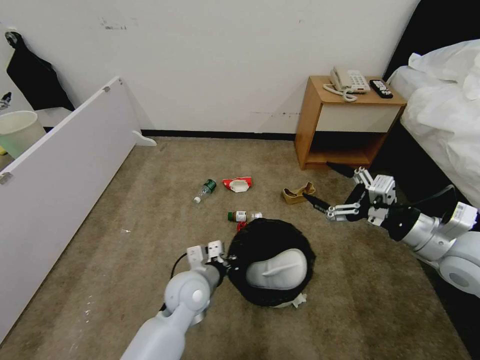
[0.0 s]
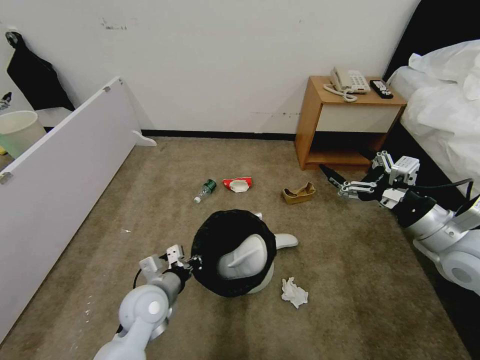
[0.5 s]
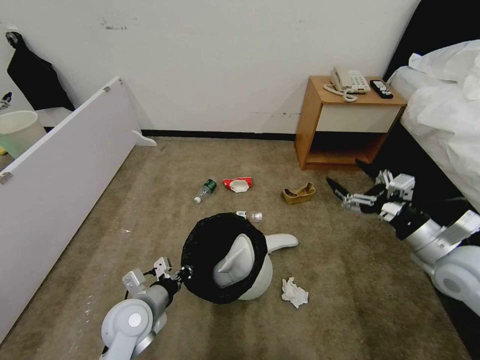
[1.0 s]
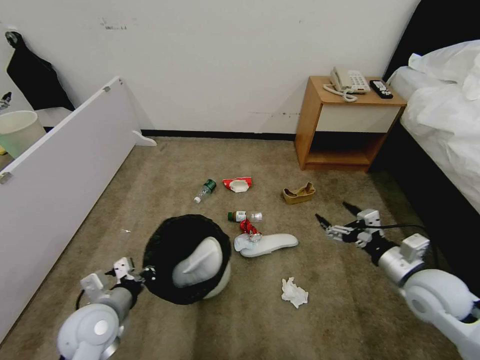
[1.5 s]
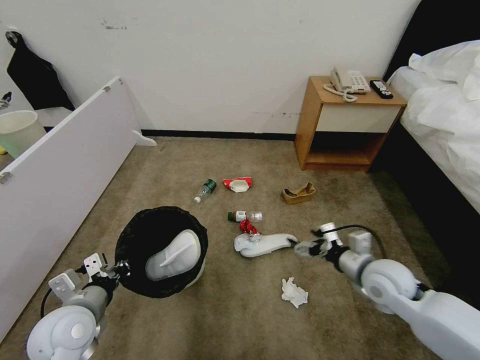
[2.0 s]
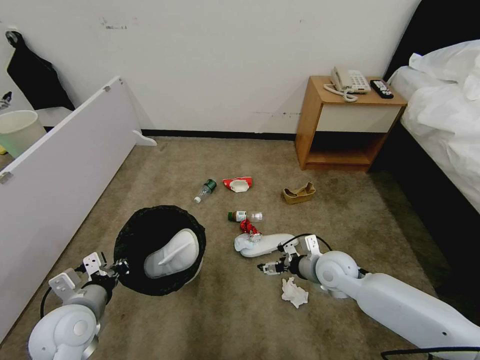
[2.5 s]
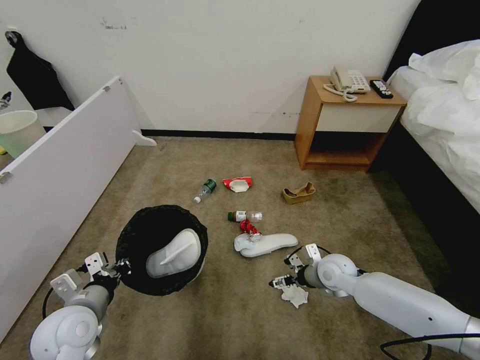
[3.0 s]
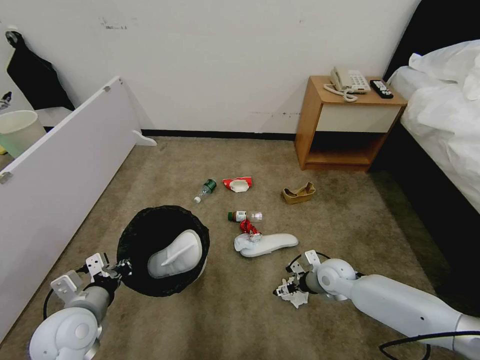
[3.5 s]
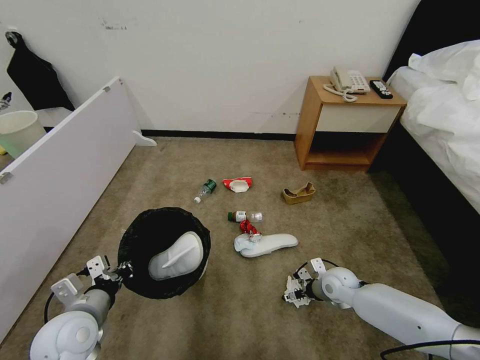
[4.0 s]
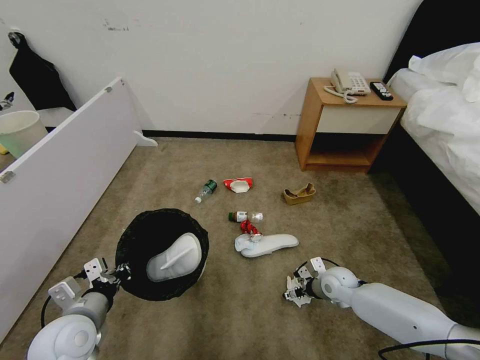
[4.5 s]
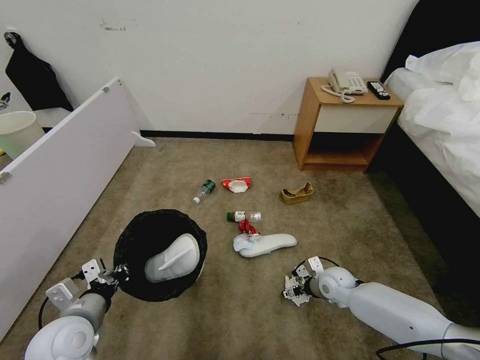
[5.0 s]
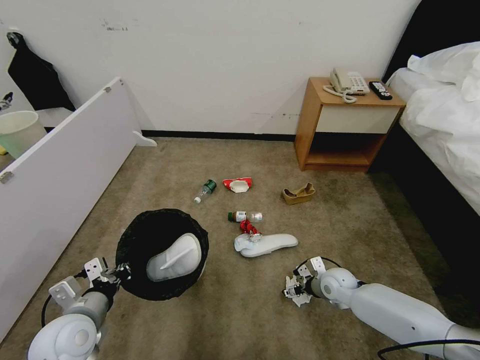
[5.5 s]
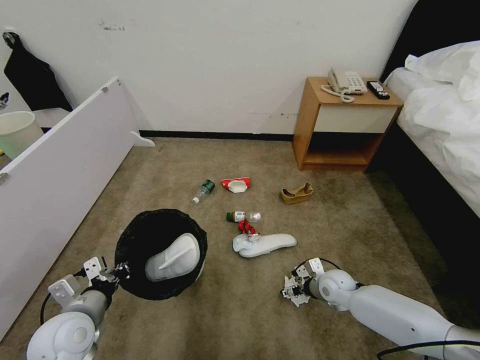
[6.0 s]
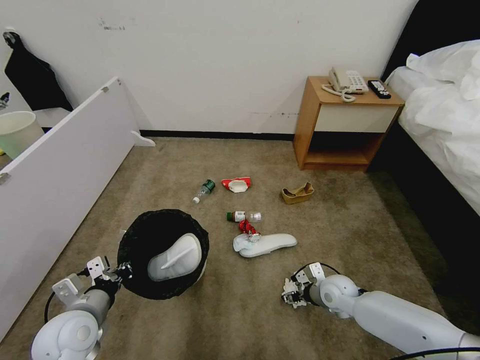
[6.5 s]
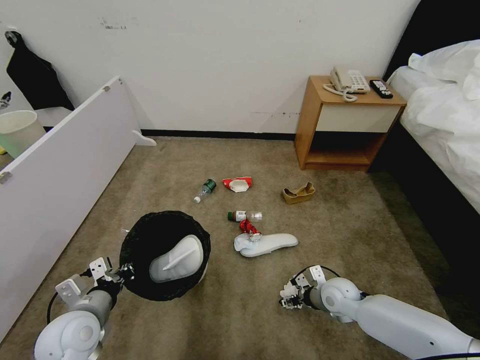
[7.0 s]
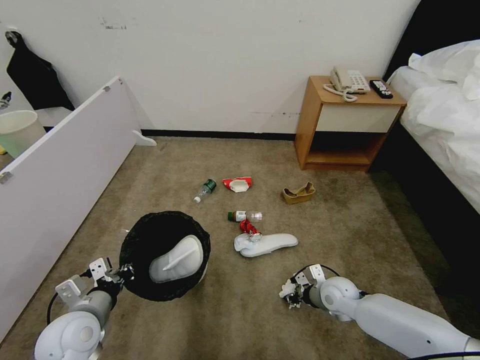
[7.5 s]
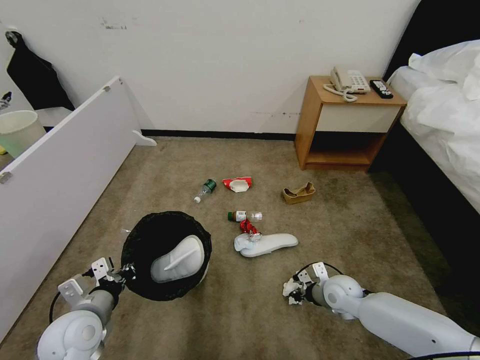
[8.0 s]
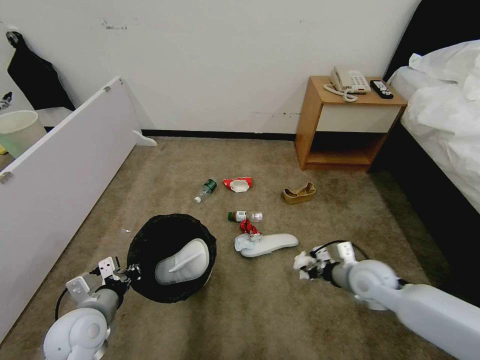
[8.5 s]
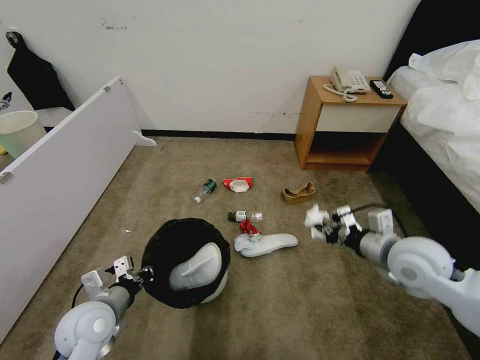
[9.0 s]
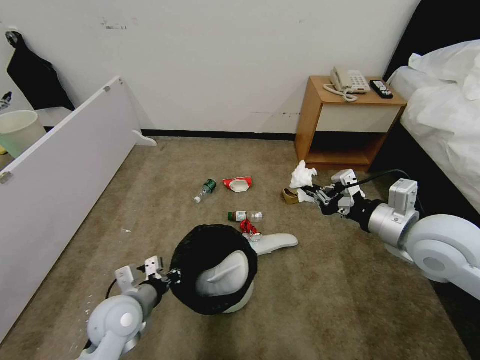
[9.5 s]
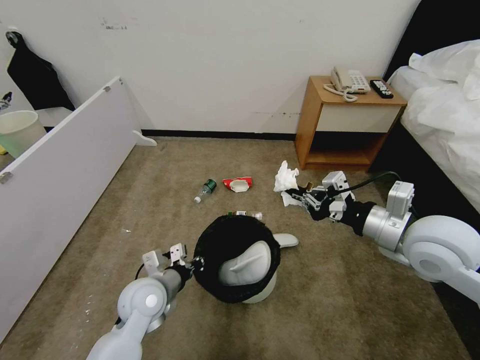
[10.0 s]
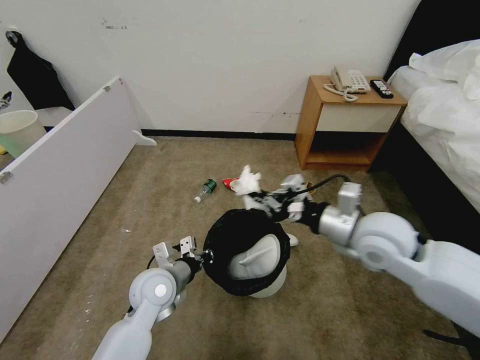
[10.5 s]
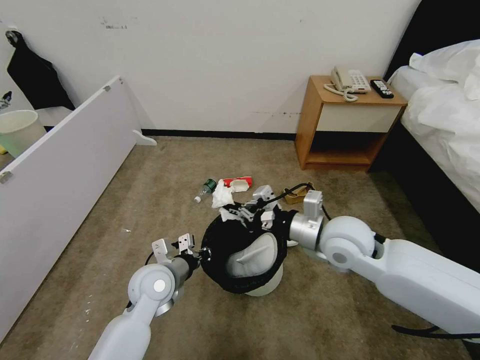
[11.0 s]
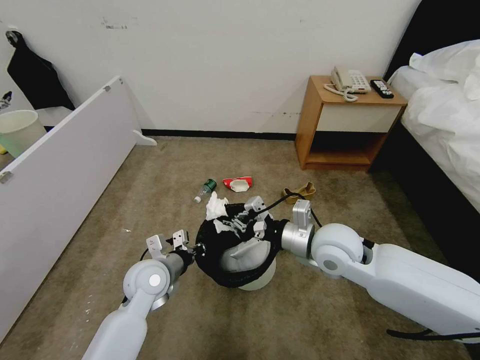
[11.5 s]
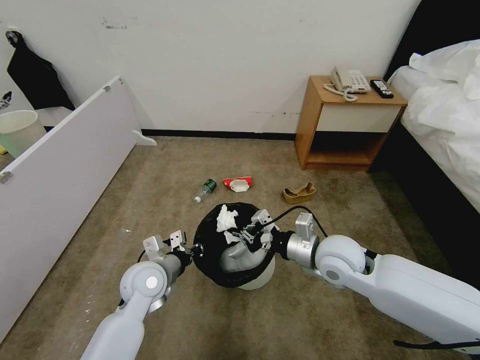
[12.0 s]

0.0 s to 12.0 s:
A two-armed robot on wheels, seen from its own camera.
Task of the whole recording: Pick up the trash bin and place the garbage on the floor into it.
0.0 to 2.0 s: The left gripper shifts about 20 cm to the left and backward. Meanwhile the right gripper heads downward and to the left, covering roughly 15 cm.
2.0 to 4.0 s: The right gripper travels downward by approximately 15 cm.
4.0 to 6.0 s: Both grippers stay about where they are.
6.0 to 8.0 s: The right gripper closes.
8.0 to 10.0 s: The right gripper moves upward, roughly 30 cm, while the left gripper is displaced to the right and forward by some 15 cm.
10.0 to 12.0 s: The right gripper moves downward and to the left, about 15 cm.

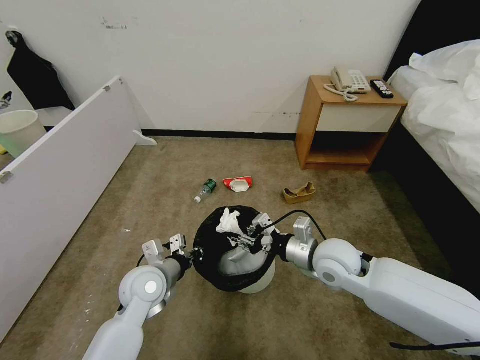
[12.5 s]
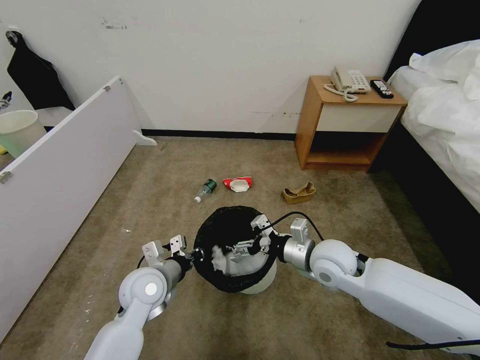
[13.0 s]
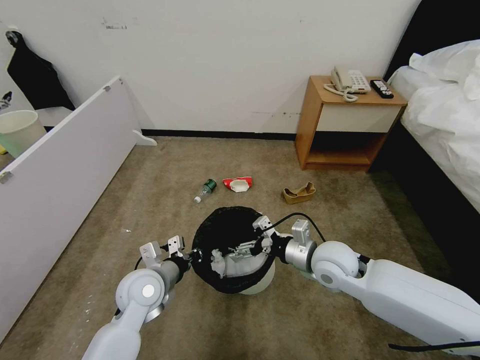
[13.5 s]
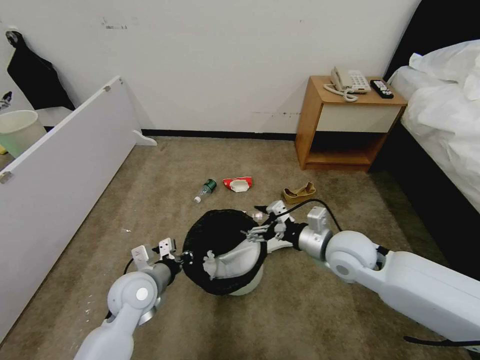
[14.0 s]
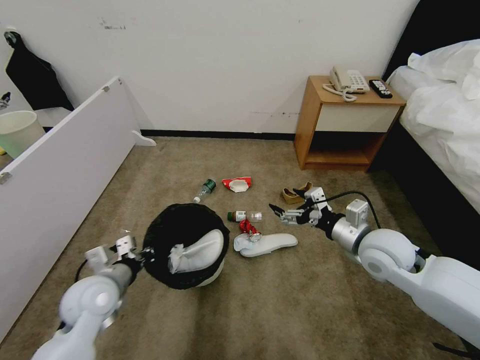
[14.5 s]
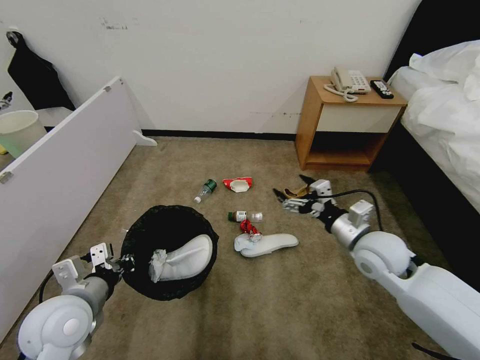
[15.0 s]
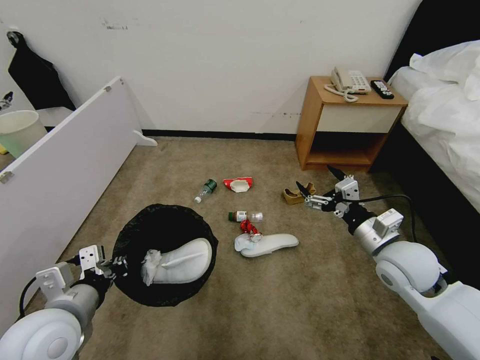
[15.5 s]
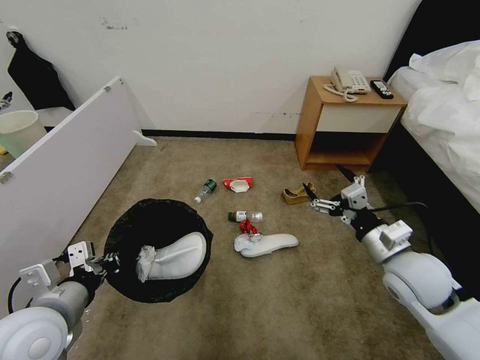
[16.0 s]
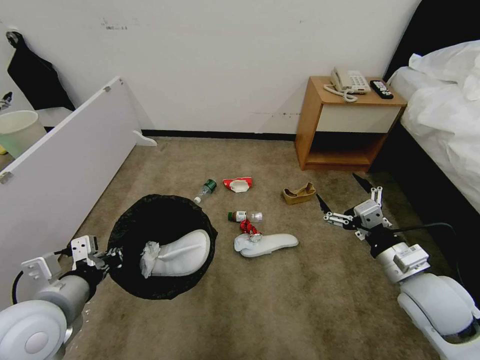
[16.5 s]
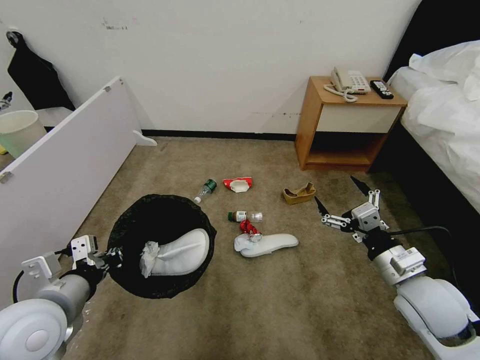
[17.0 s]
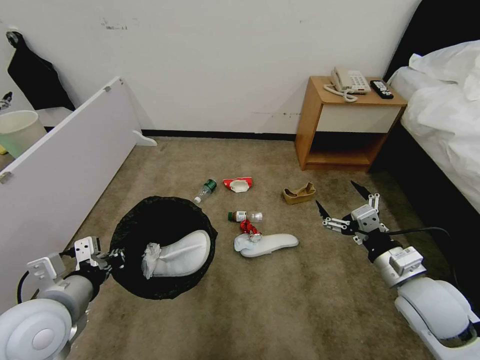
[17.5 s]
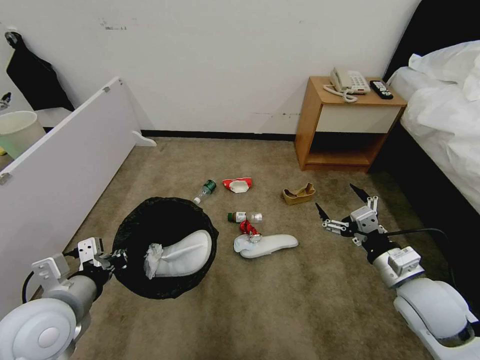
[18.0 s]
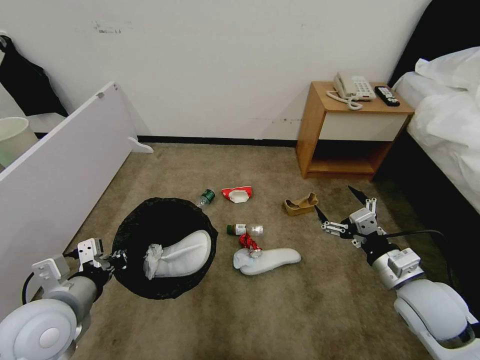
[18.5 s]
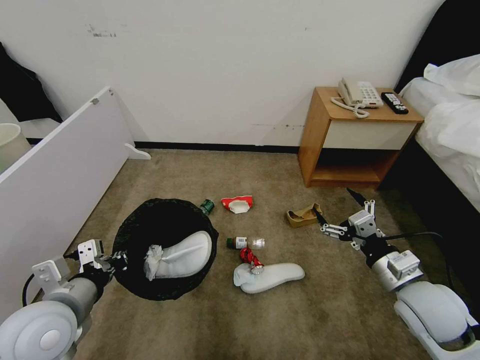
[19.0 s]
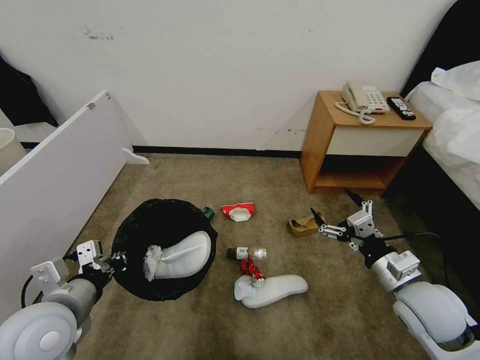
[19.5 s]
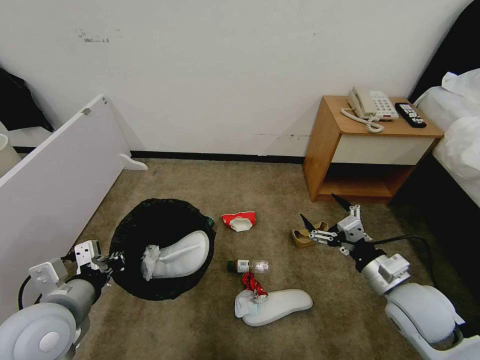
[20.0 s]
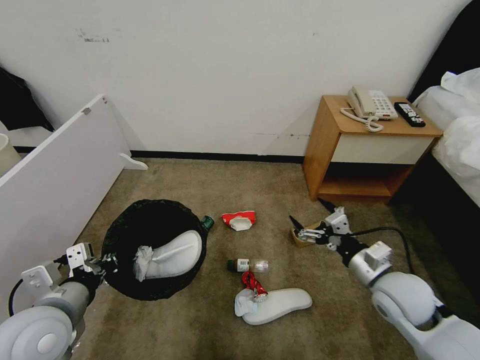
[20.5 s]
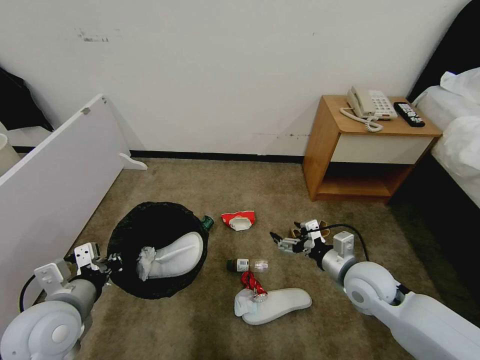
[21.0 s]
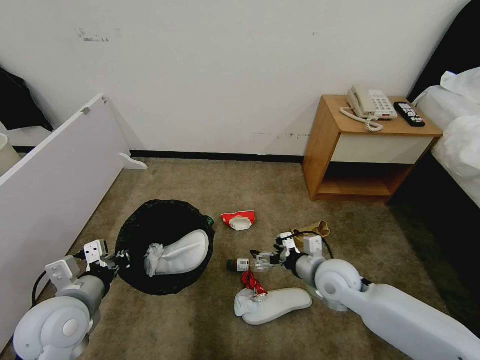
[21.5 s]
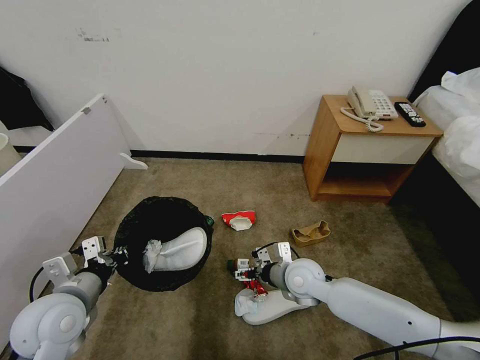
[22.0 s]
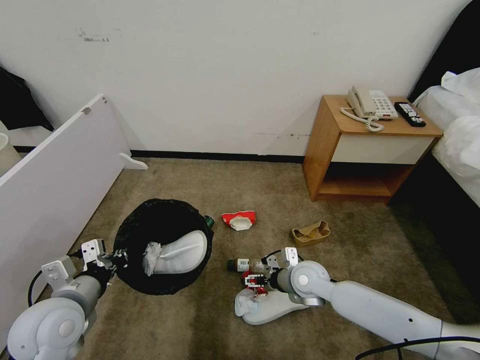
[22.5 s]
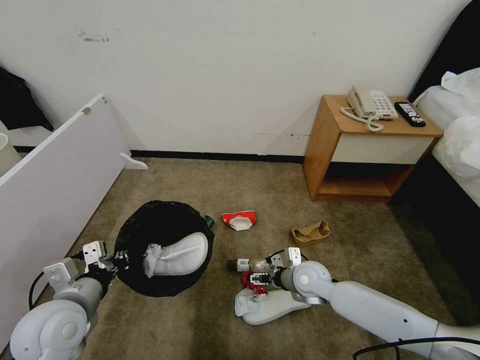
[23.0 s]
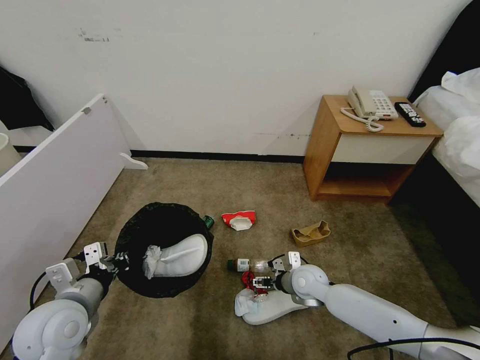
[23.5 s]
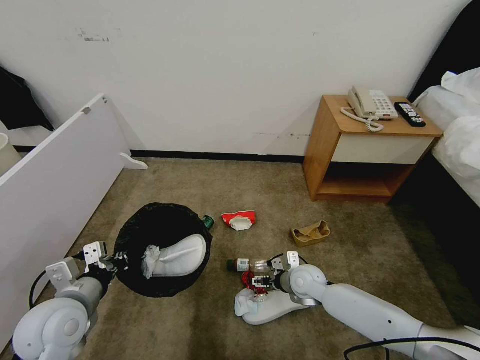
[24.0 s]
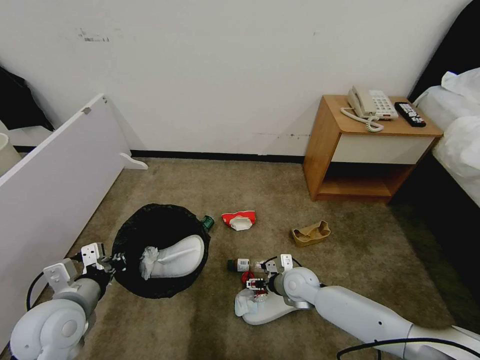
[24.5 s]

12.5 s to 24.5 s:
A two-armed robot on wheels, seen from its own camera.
Task of the whole recording: Pick up the trash bin and place the garbage on the floor into it.
12.5 to 14.5 s: The right gripper is displaced to the right by about 10 cm, and opens its fingers. Meanwhile the left gripper goes roughly 10 cm to the left.
14.5 to 16.5 s: The left gripper shifts some 15 cm upward and backward, while the right gripper is displaced backward by some 10 cm.
16.5 to 18.5 s: The grippers make only small movements.
20.5 to 22.5 s: The right gripper is displaced to the left, downward and forward by approximately 20 cm.
22.5 to 24.5 s: The right gripper is displaced downward by roughly 5 cm.

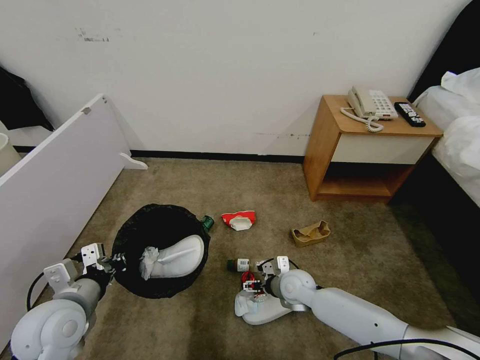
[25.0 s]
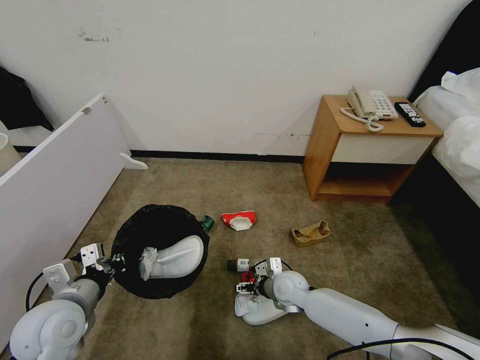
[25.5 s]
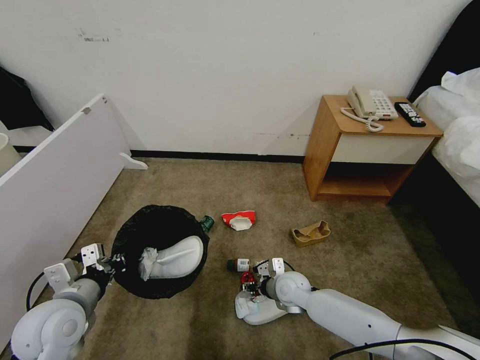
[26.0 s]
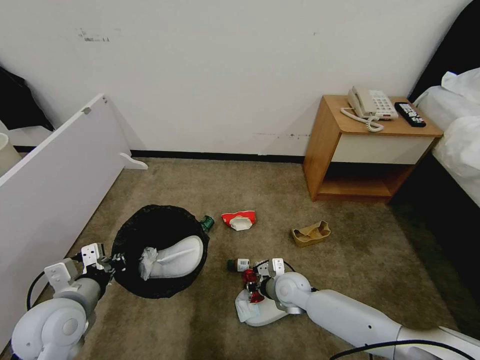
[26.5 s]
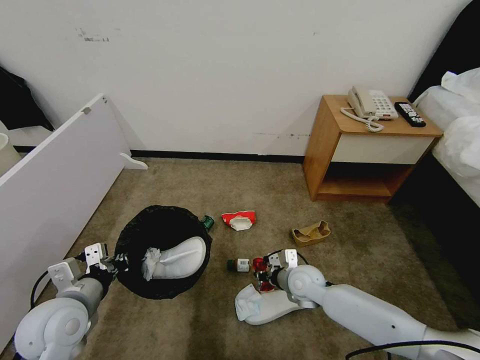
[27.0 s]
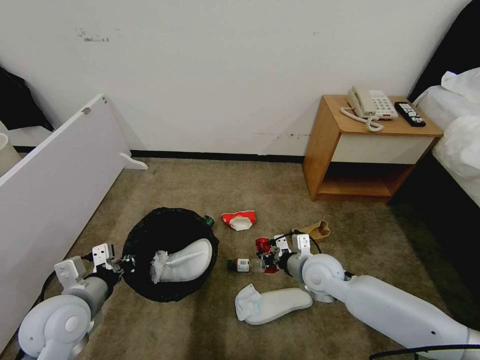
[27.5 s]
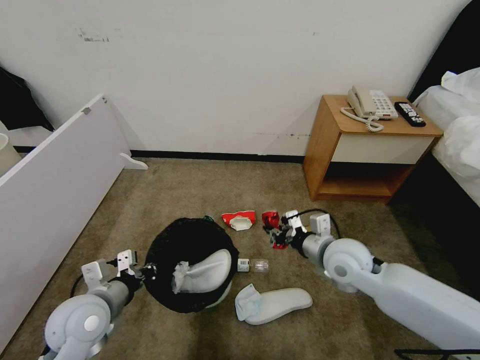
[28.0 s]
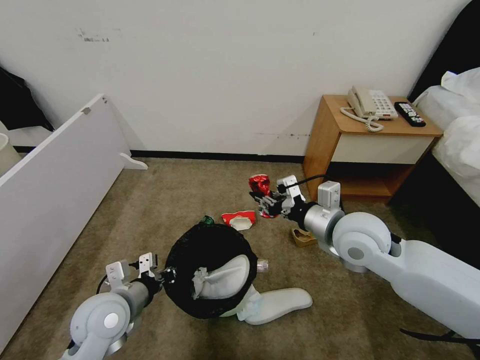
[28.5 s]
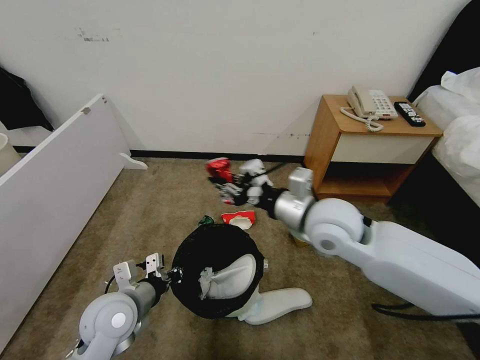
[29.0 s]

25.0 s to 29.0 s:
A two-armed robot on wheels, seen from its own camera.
Task of the whole recording: Pick up the trash bin and place the garbage on the floor into it.
25.0 to 27.0 s: The right gripper closes.
27.0 to 29.0 s: The left gripper is displaced to the right by roughly 10 cm, while the right gripper shifts about 25 cm upward.
